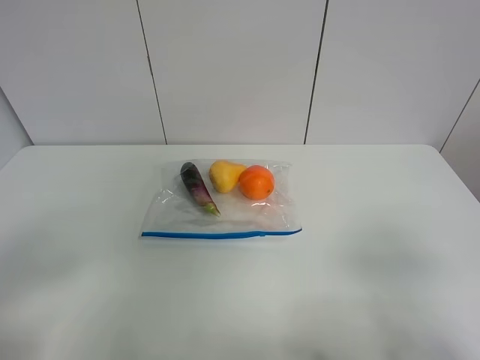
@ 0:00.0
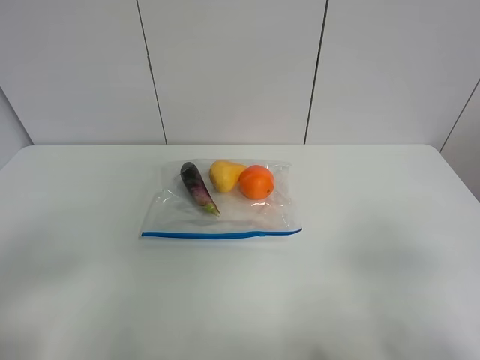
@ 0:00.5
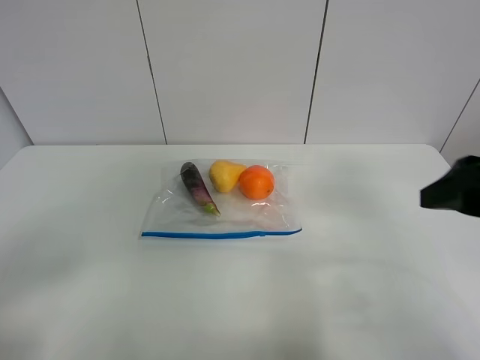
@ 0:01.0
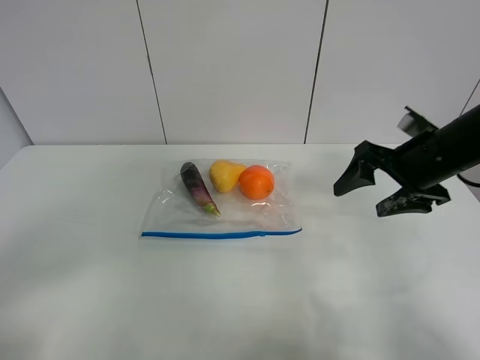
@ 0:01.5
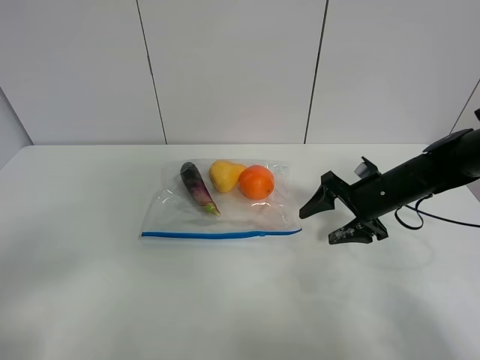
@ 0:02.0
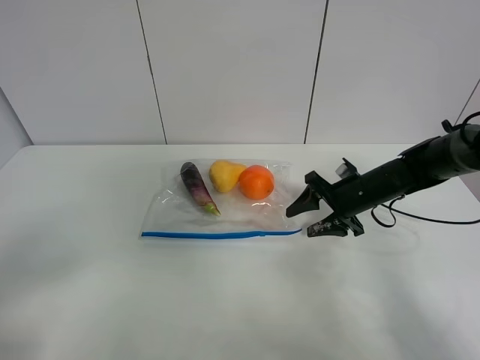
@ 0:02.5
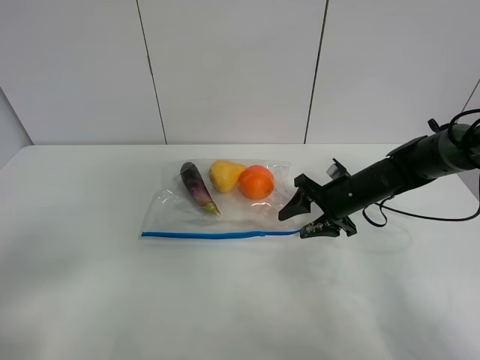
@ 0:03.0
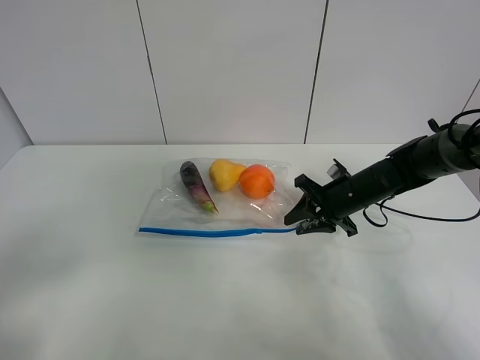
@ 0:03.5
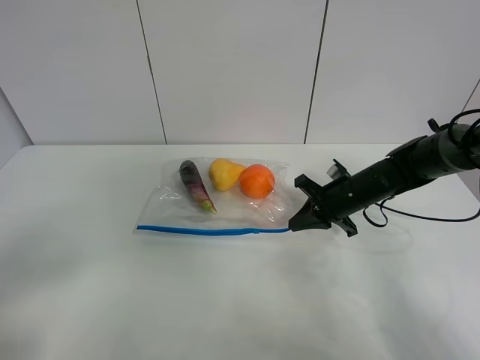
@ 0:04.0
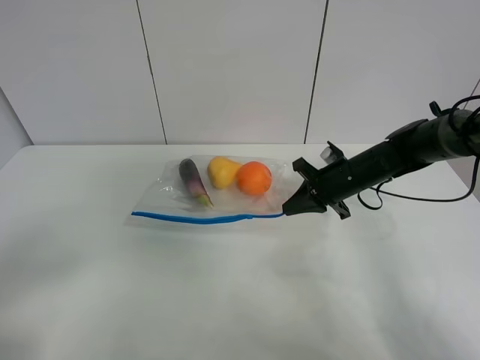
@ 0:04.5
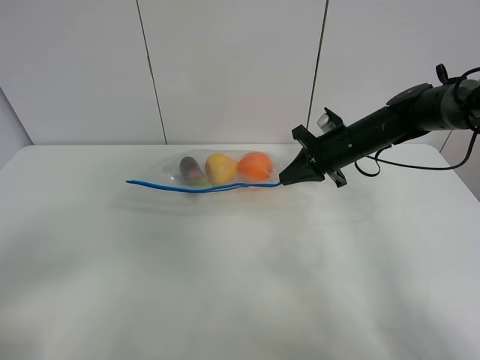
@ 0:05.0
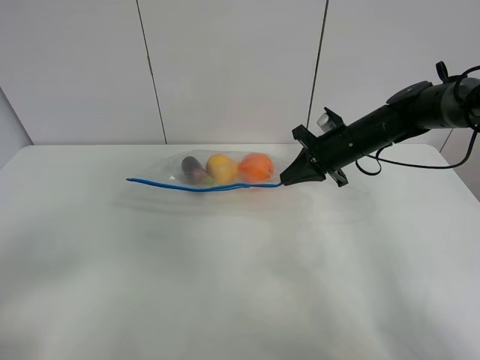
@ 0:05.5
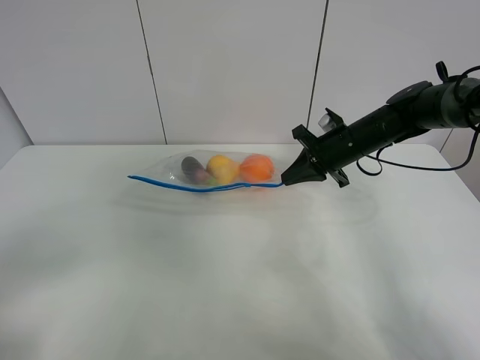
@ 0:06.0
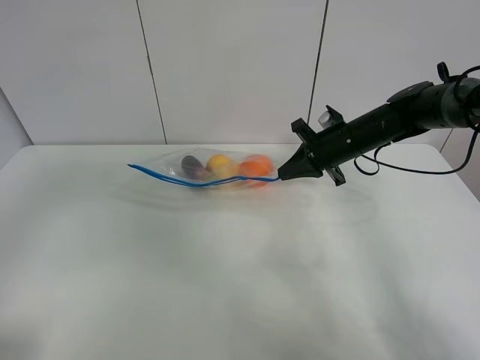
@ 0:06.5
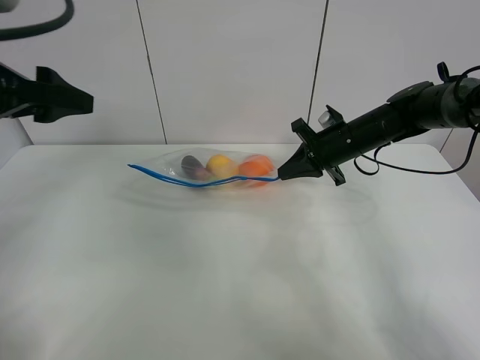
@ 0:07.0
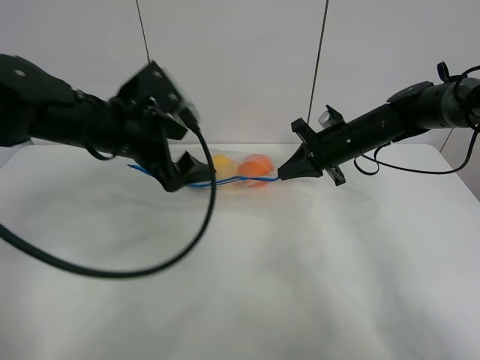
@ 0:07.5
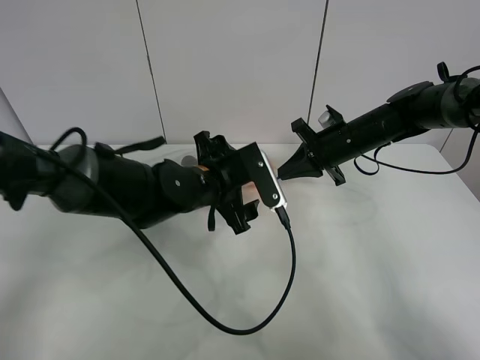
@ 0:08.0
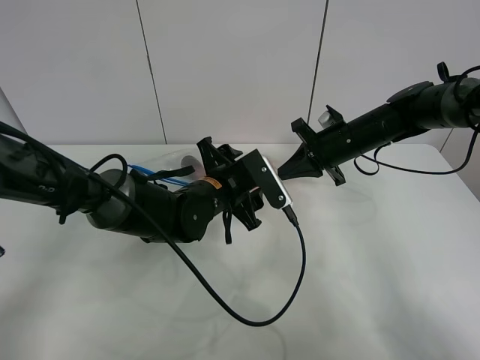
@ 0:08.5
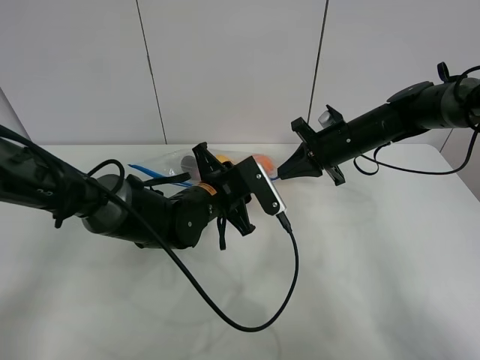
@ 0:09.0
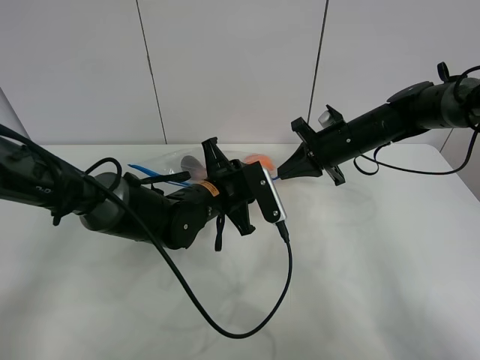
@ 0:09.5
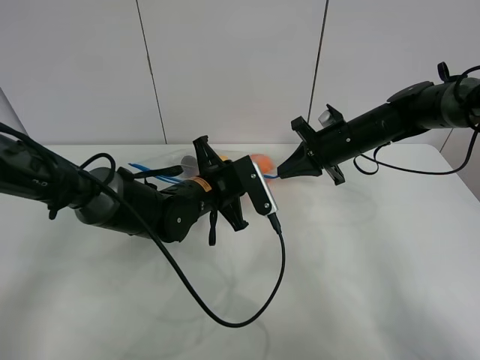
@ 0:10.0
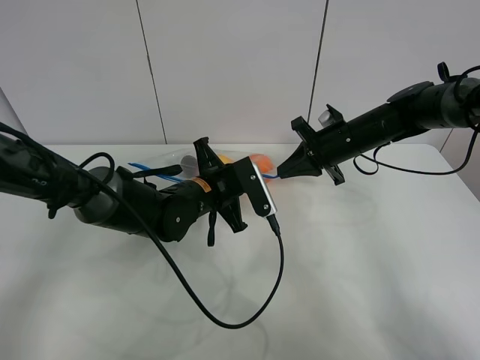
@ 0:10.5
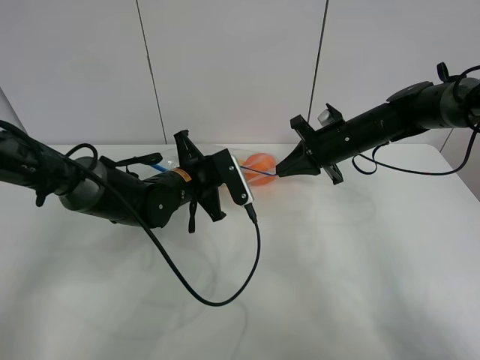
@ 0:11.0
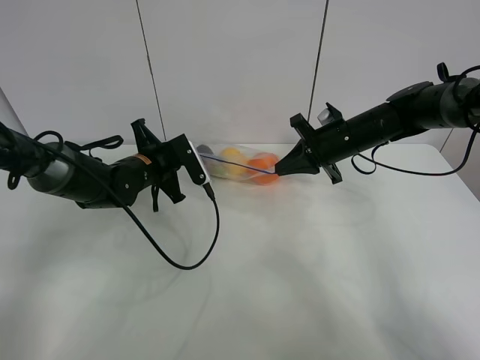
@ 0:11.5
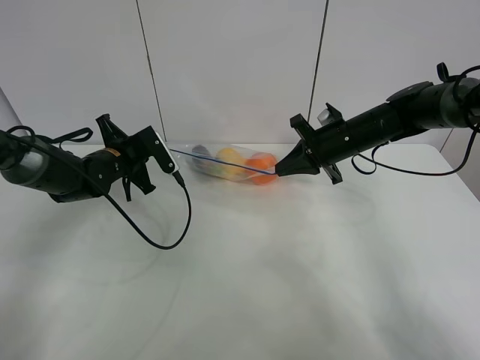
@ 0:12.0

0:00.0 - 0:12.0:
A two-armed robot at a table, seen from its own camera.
Step, 0:00.0 - 0:04.0: Grasp the fruit bag with right gripper.
Step, 0:04.5 - 0:05.5: Lift the fruit bag with your right gripper.
0:00.0 - 0:02.0: The right gripper heads forward and downward, covering roughly 35 cm.
0:02.0 - 0:04.0: The right gripper closes its fingers.
0:04.0 - 0:06.0: The right gripper is displaced upward by some 5 cm.
0:06.0 - 0:08.0: The left gripper heads forward, to the right and downward, covering roughly 40 cm.
0:08.0 - 0:10.0: The left gripper closes up.
0:10.0 - 0:12.0: The left gripper moves to the left and forward, approximately 20 cm.

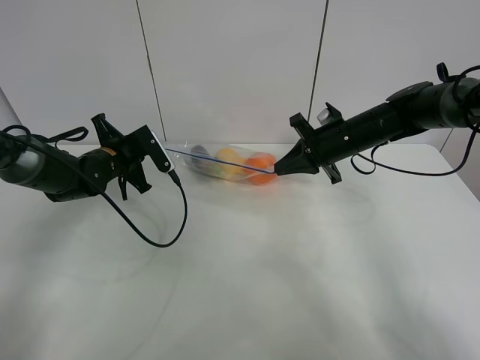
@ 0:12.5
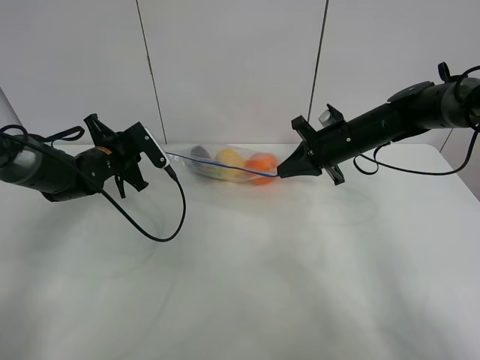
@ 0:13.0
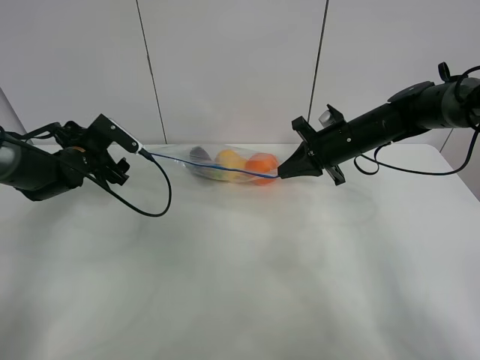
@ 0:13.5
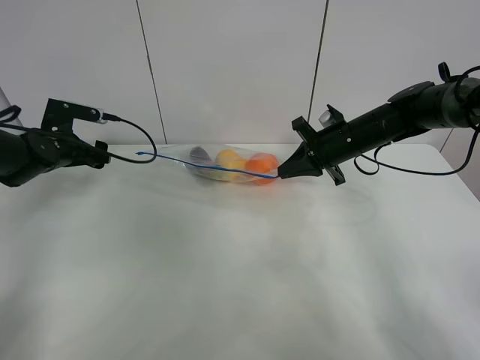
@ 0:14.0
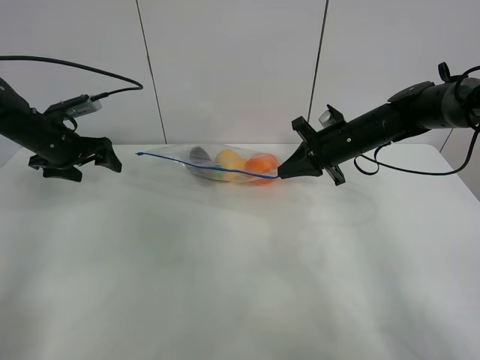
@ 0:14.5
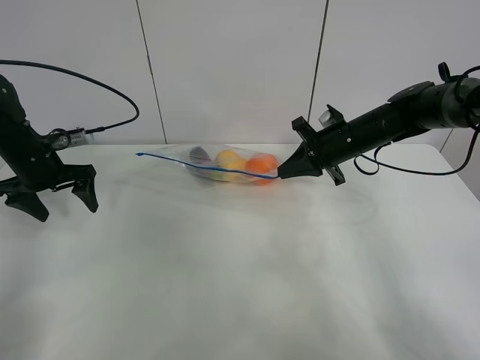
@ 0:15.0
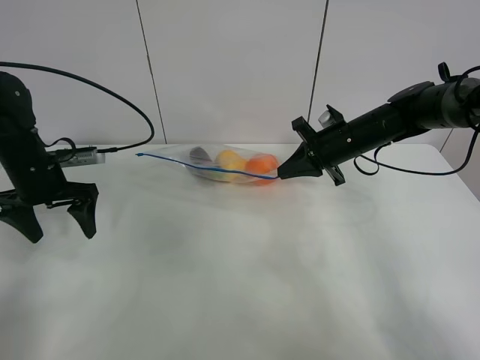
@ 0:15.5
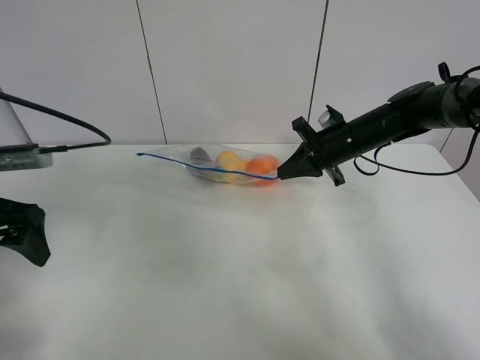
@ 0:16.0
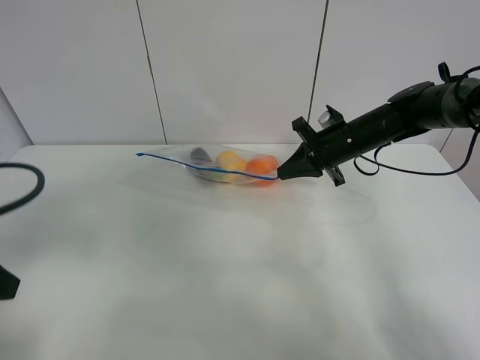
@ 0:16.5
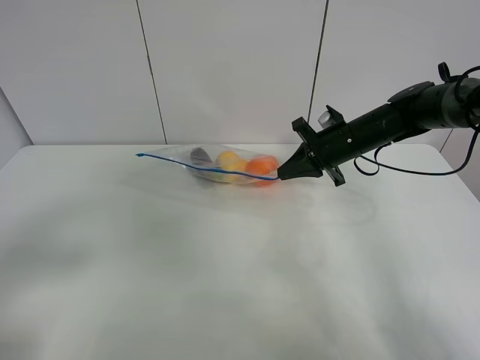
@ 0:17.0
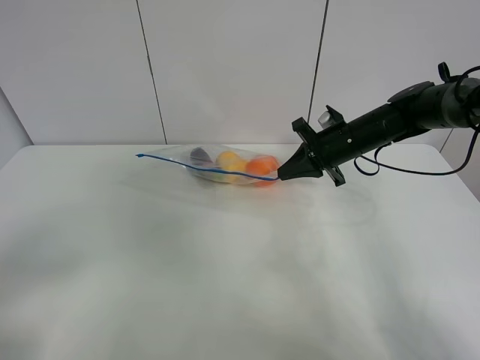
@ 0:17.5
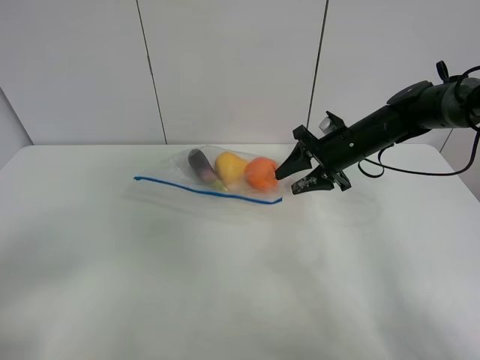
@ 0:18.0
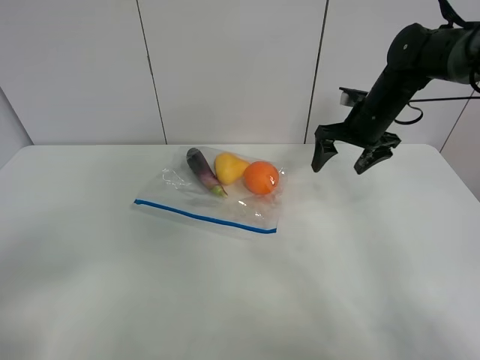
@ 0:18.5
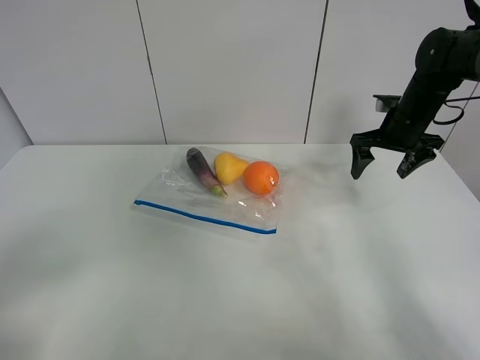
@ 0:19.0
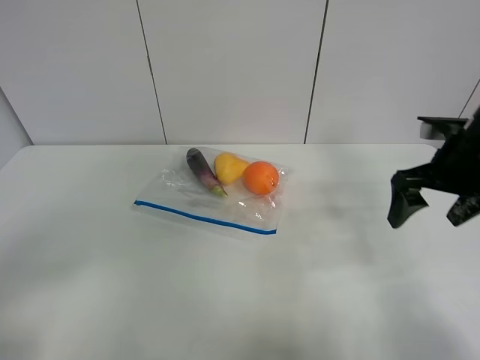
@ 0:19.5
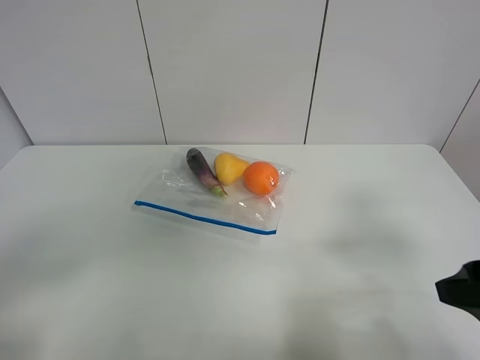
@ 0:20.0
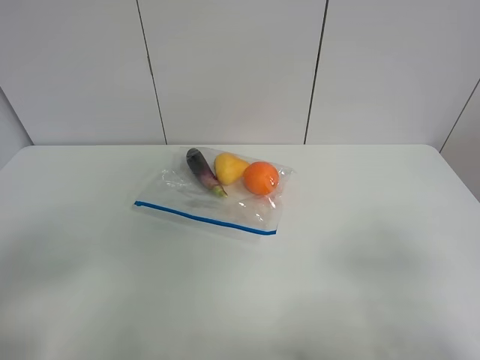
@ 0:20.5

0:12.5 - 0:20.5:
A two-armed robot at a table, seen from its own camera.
0:12.5 - 0:14.5: The left gripper moves to the left, some 10 cm, and opens.
0:14.5 - 0:16.5: The left gripper travels backward by approximately 30 cm.
0:16.5 - 0:18.5: The left gripper shifts approximately 10 cm backward. Meanwhile the right gripper changes place by roughly 5 cm, and opens its fingers.
0:18.5 - 0:20.5: The right gripper is displaced backward by approximately 40 cm.

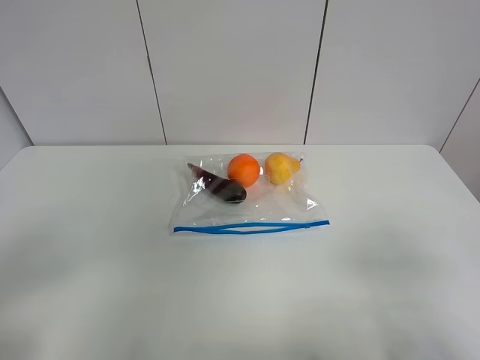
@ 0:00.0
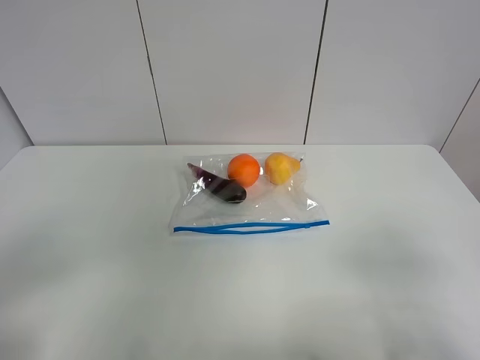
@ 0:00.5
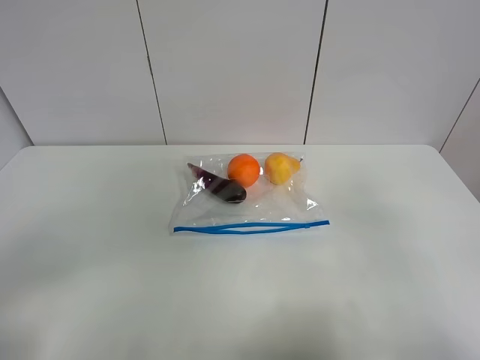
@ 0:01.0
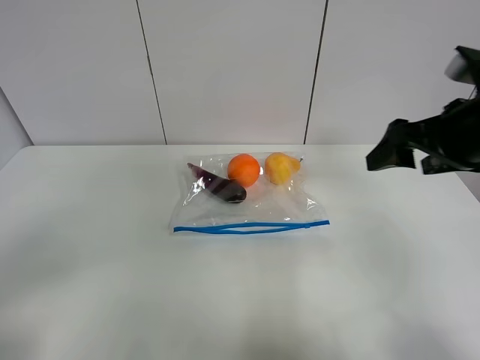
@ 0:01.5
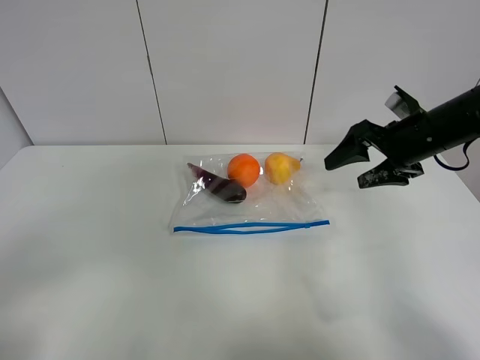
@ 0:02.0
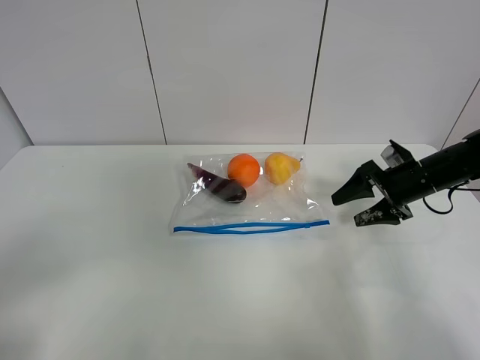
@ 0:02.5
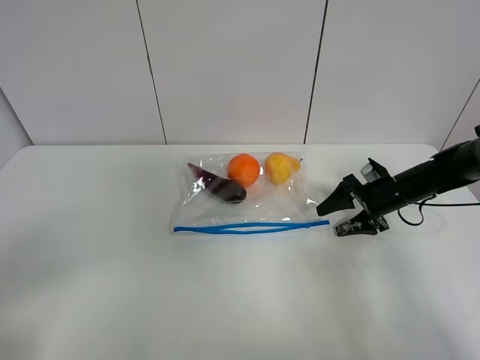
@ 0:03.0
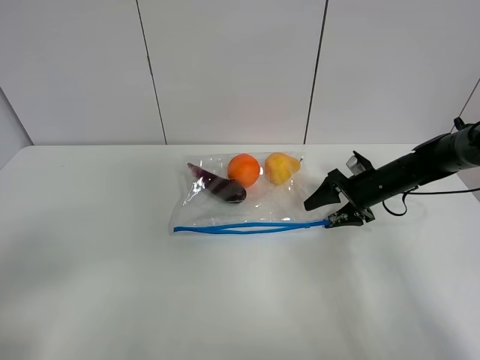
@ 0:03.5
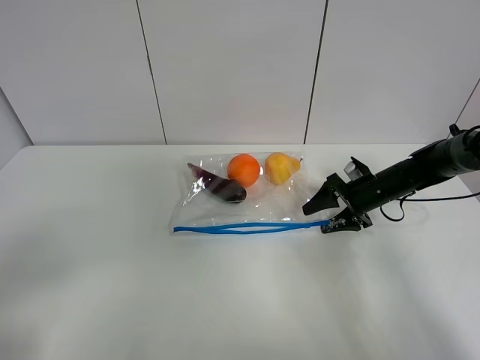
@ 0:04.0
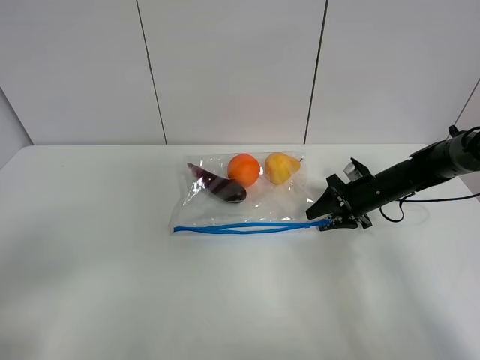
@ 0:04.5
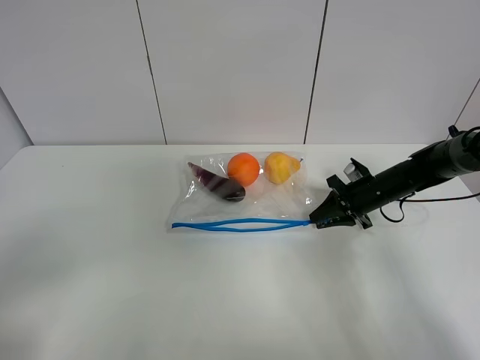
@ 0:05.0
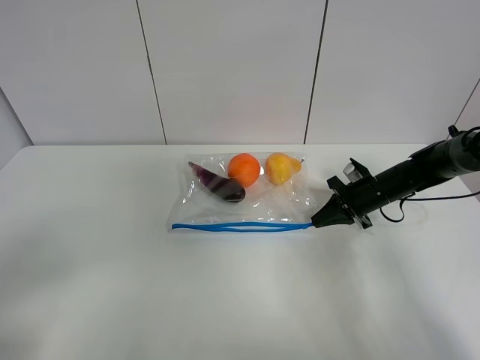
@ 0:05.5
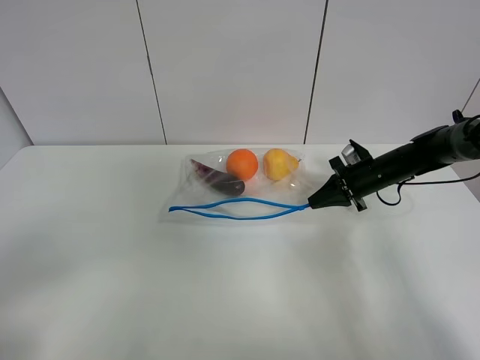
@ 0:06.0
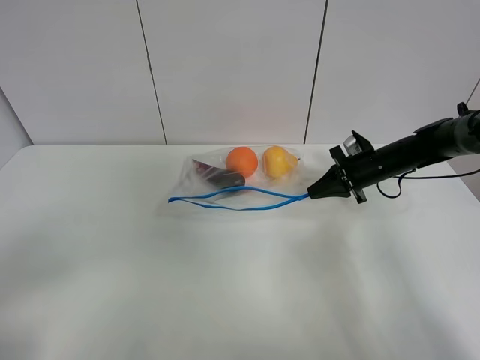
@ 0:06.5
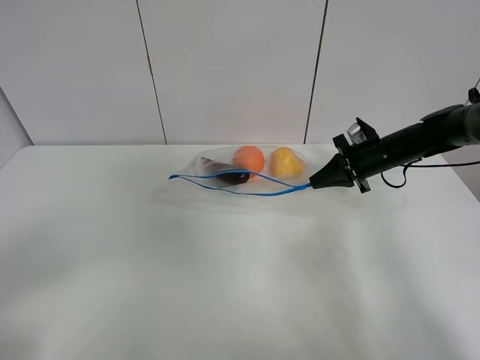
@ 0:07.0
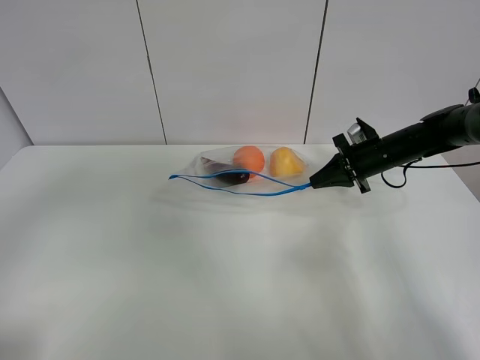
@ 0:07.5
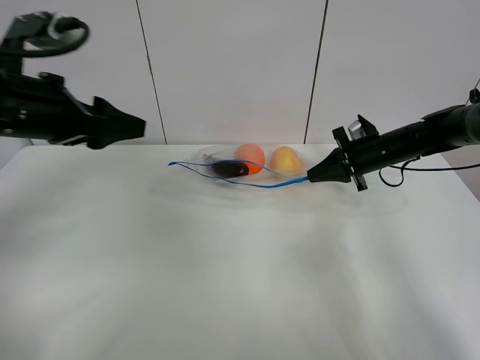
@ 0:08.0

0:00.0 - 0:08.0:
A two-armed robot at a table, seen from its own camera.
Step, 0:00.0 - 0:05.0: Grasp the fruit bag with right gripper.
Step, 0:05.5 - 0:08.0: Lift the fruit bag with your right gripper.
0:00.0 - 0:02.0: The right gripper is displaced forward by roughly 35 cm.
0:02.0 - 0:04.0: The right gripper shifts roughly 15 cm downward.
0:04.0 - 0:06.0: The right gripper closes its fingers.
0:06.0 - 0:08.0: The left gripper goes some 30 cm forward.
